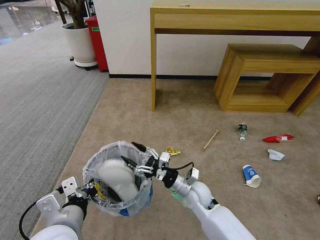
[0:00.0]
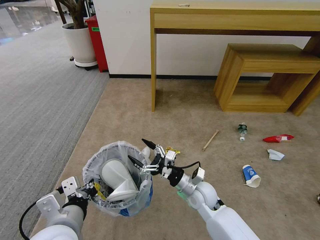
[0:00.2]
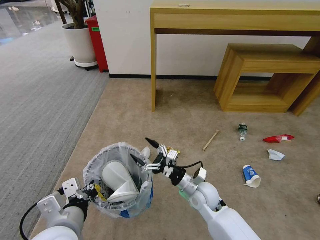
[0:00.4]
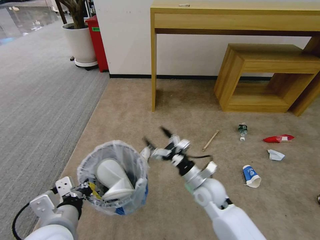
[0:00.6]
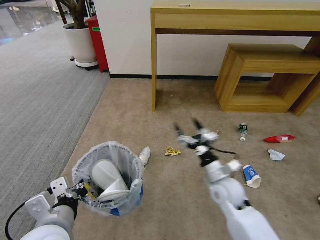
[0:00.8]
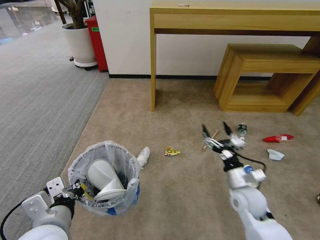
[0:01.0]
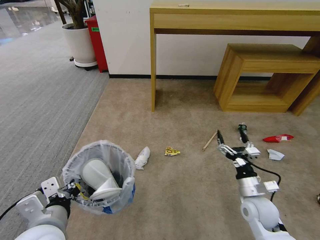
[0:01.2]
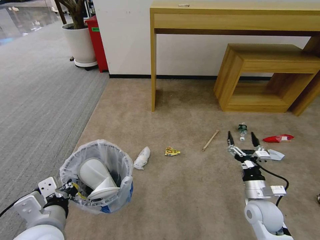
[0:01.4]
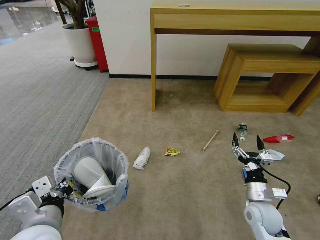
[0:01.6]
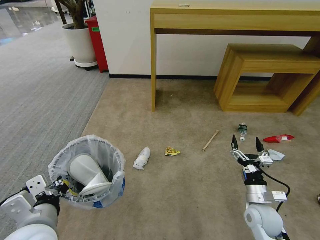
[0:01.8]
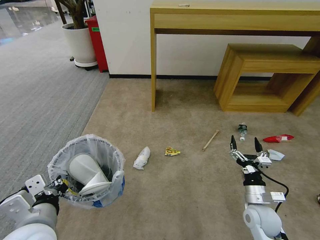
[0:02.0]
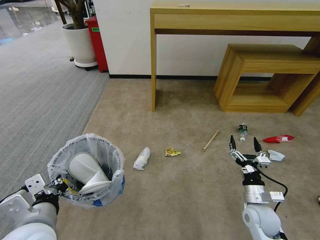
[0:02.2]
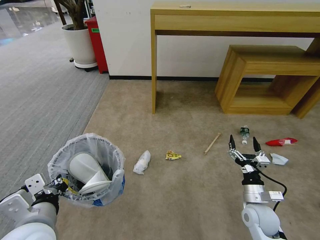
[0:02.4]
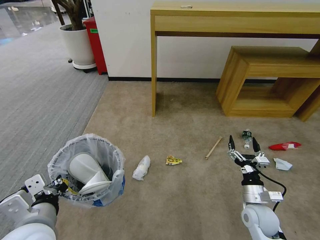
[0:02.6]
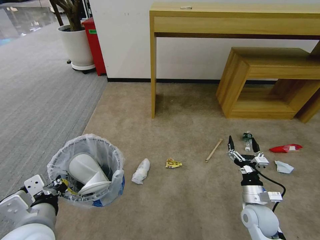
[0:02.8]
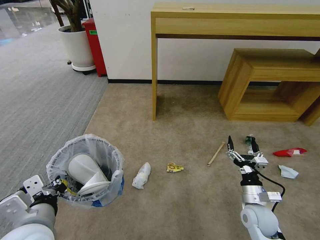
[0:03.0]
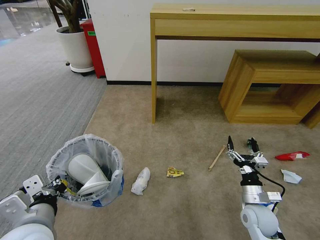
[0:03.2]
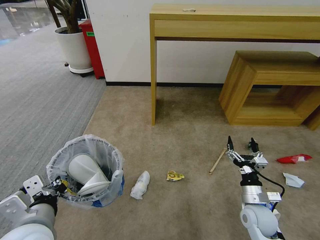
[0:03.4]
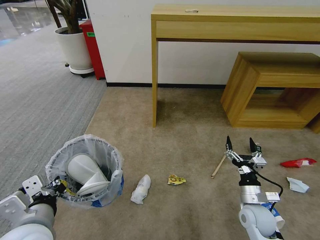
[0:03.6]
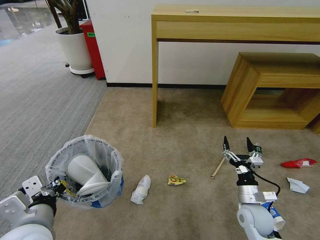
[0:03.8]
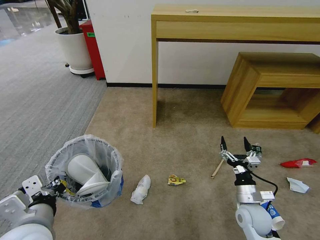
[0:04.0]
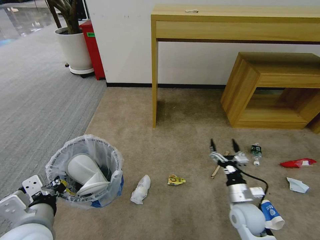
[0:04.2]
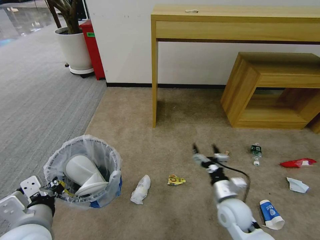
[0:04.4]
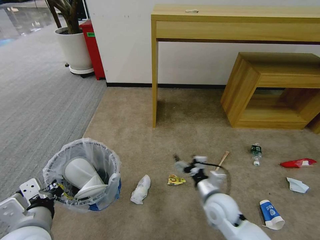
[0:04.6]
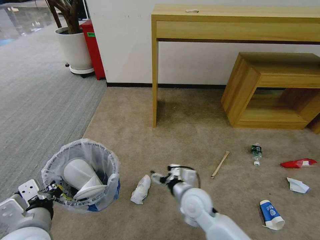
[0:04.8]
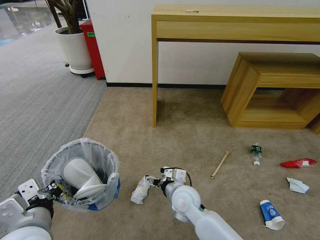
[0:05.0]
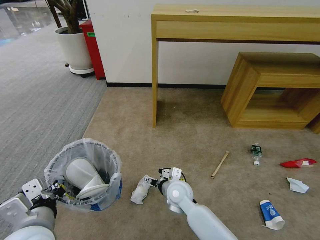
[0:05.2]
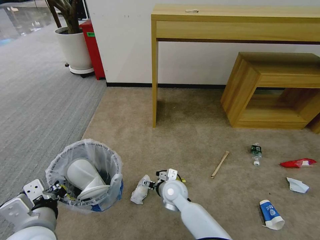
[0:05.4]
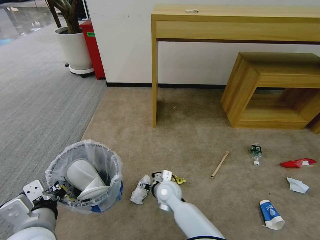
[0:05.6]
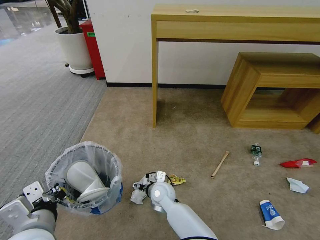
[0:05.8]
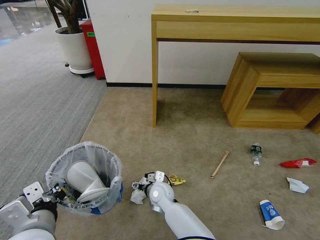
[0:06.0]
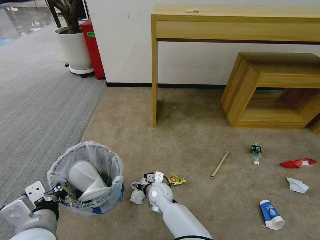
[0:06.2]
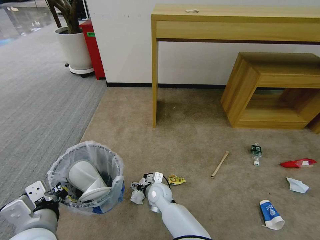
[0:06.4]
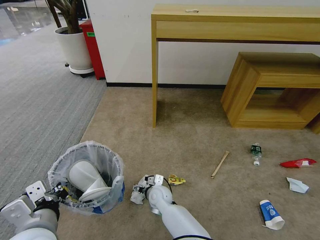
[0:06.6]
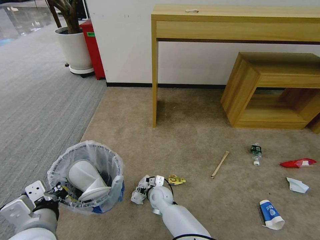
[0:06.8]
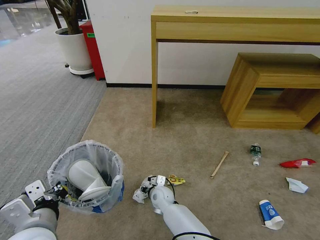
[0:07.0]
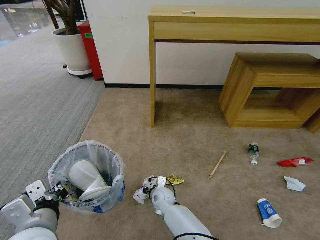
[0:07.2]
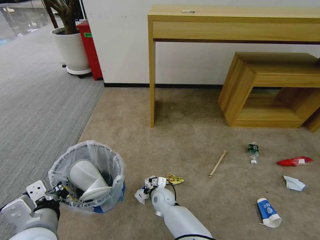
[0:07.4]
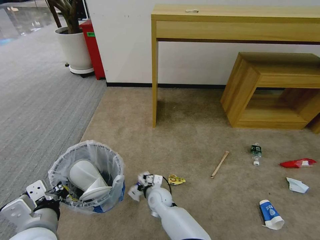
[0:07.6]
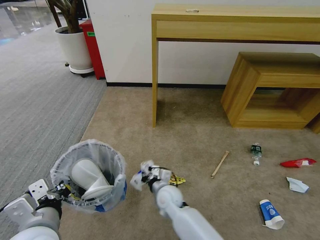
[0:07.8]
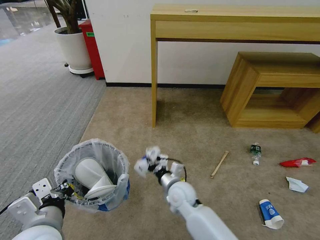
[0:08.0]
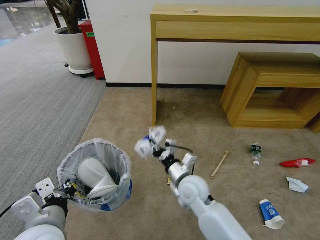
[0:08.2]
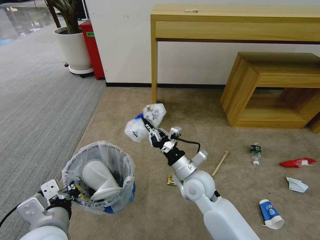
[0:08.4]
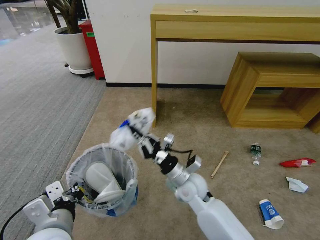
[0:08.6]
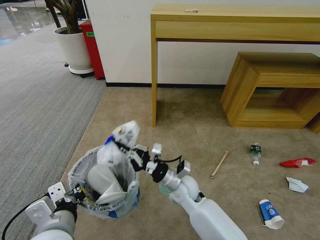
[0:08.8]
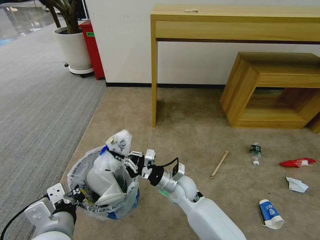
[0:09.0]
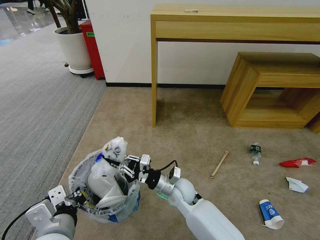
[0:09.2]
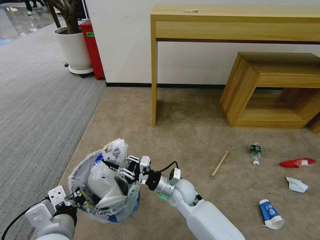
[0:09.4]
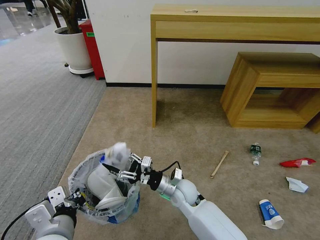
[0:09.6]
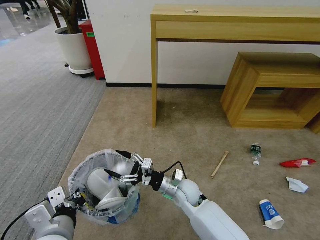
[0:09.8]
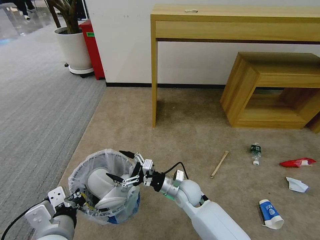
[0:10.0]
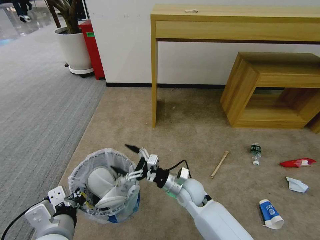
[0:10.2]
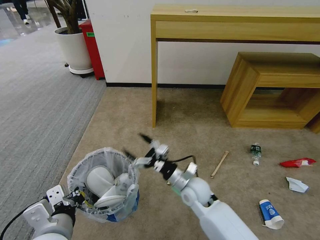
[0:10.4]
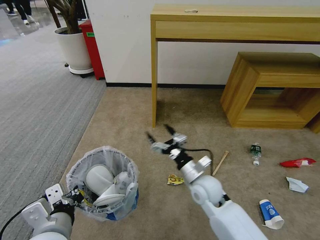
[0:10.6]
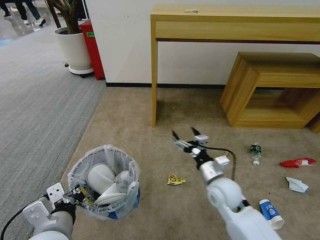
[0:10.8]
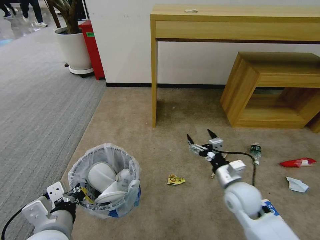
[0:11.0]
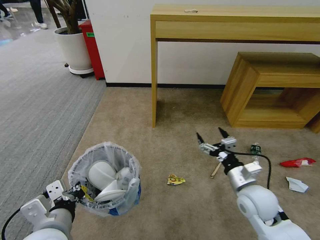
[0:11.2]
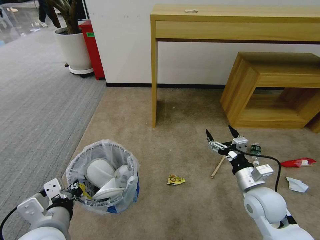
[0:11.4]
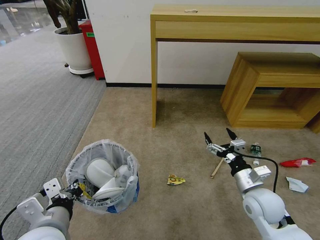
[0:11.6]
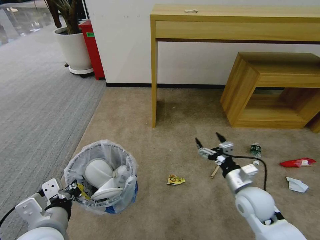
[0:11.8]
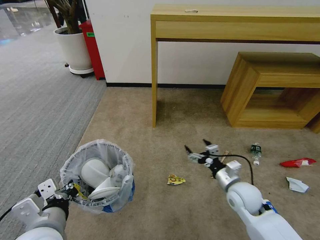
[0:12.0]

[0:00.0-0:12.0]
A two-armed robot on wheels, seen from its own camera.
Task of the whole recording: Pick up the trash bin and place the garbage on the floor into it.
0:00.0 to 0:01.6: The right gripper shifts about 20 cm to the right.
0:03.0 to 0:04.4: The right gripper moves to the left, approximately 5 cm.
0:04.4 to 0:06.0: The right gripper goes approximately 25 cm to the left.
0:06.0 to 0:07.6: The right gripper closes its fingers.
0:07.6 to 0:09.0: The right gripper goes some 15 cm upward and to the right.
0:09.0 to 0:10.4: The right gripper shifts by roughly 5 cm, and opens up.
0:10.4 to 0:12.0: The right gripper heads to the right, covering about 15 cm.

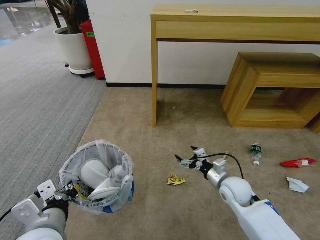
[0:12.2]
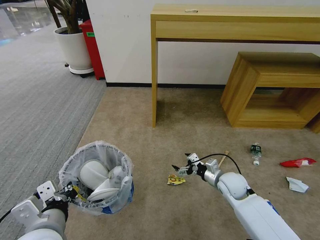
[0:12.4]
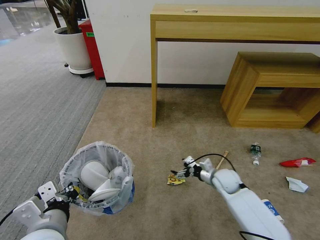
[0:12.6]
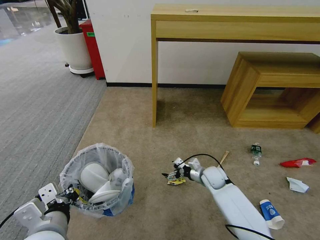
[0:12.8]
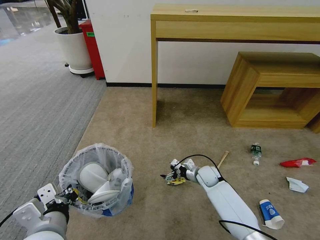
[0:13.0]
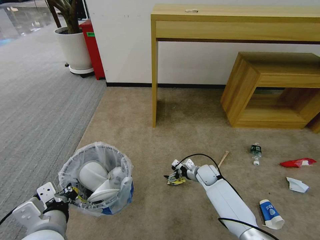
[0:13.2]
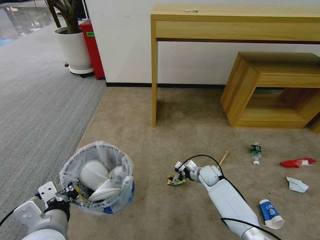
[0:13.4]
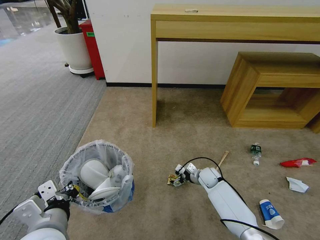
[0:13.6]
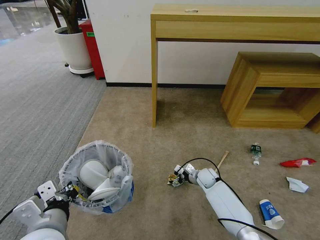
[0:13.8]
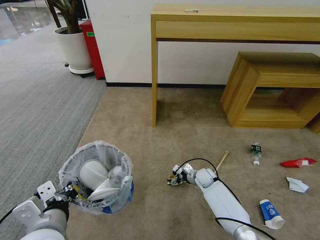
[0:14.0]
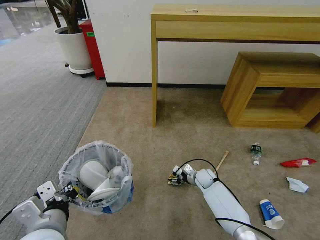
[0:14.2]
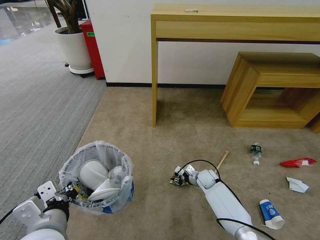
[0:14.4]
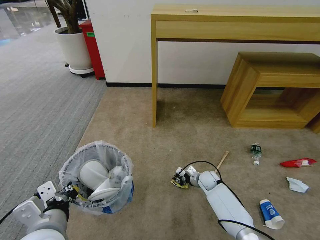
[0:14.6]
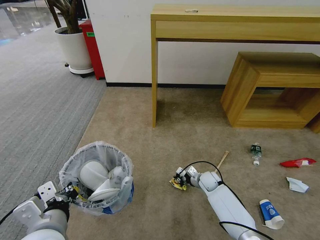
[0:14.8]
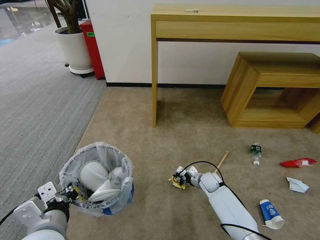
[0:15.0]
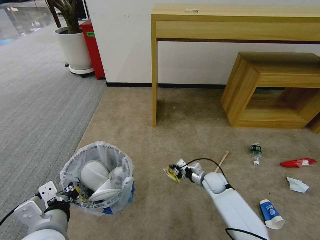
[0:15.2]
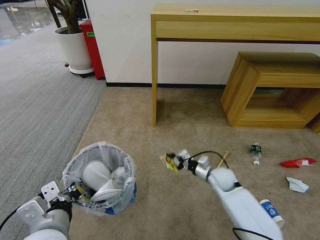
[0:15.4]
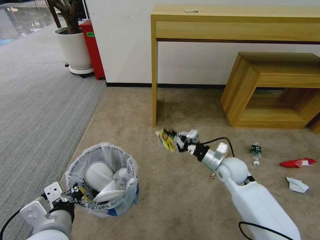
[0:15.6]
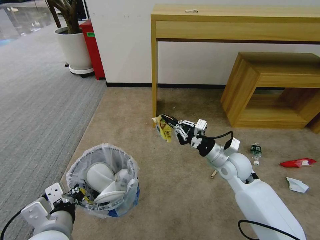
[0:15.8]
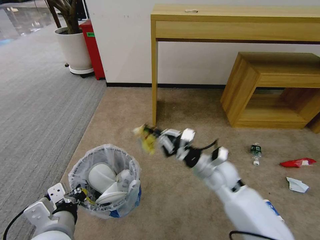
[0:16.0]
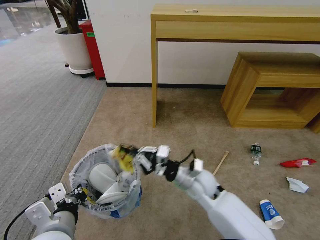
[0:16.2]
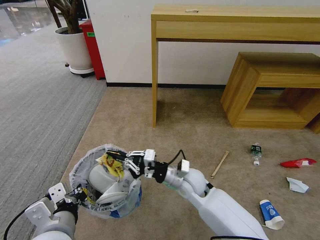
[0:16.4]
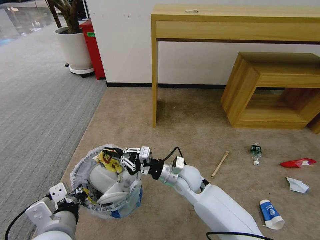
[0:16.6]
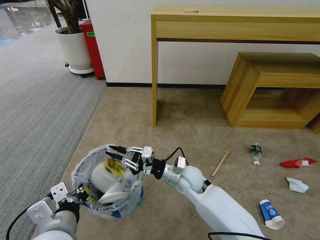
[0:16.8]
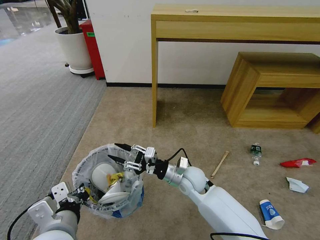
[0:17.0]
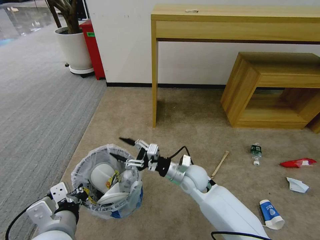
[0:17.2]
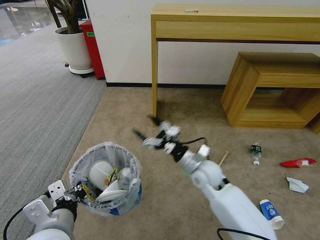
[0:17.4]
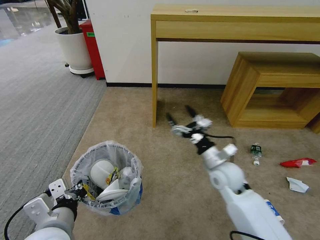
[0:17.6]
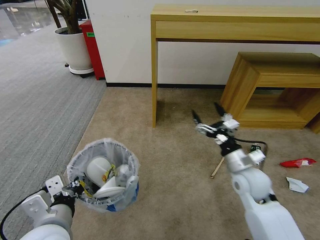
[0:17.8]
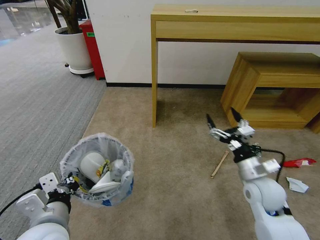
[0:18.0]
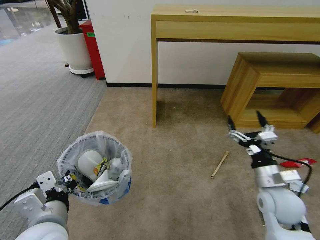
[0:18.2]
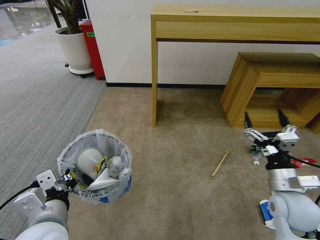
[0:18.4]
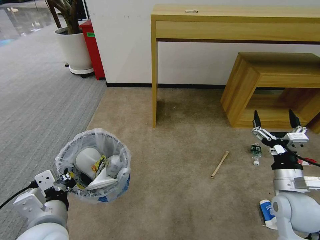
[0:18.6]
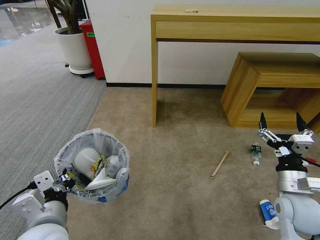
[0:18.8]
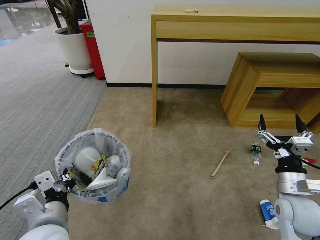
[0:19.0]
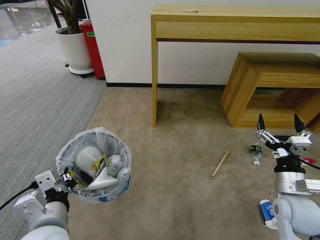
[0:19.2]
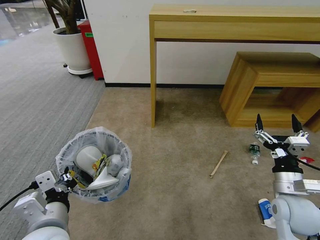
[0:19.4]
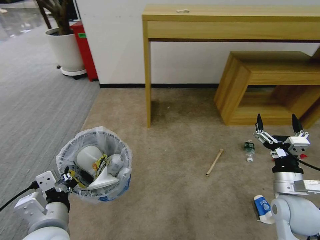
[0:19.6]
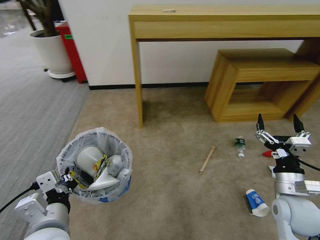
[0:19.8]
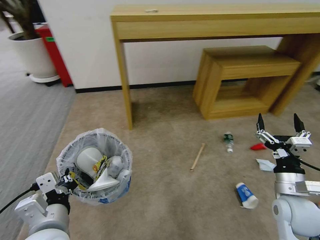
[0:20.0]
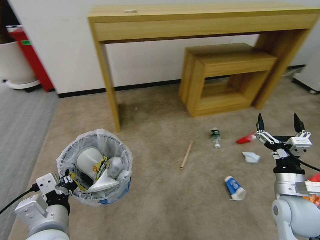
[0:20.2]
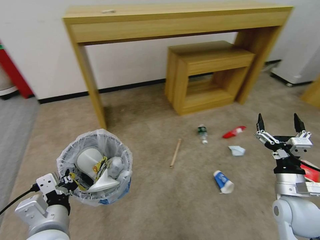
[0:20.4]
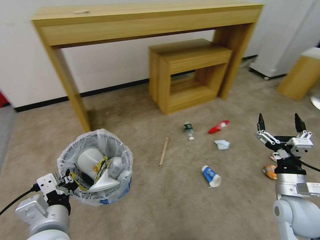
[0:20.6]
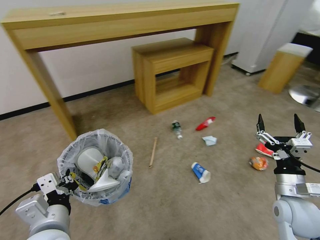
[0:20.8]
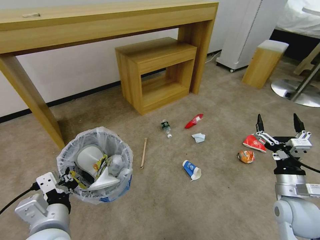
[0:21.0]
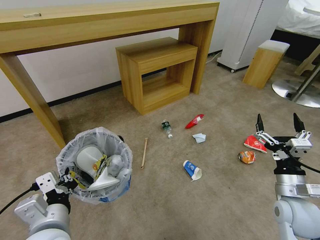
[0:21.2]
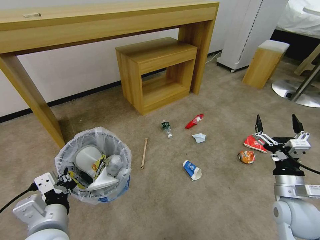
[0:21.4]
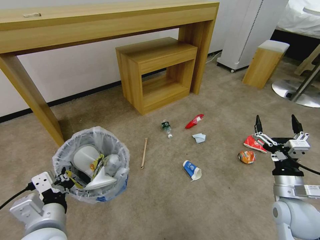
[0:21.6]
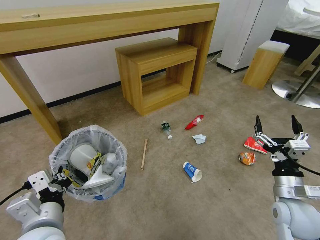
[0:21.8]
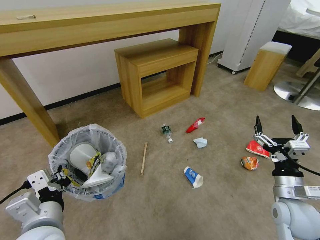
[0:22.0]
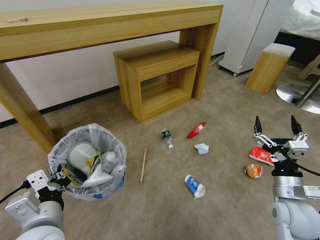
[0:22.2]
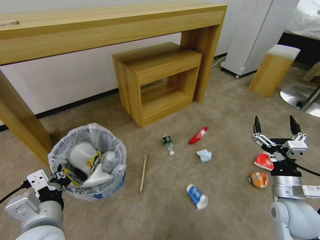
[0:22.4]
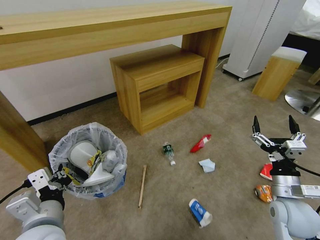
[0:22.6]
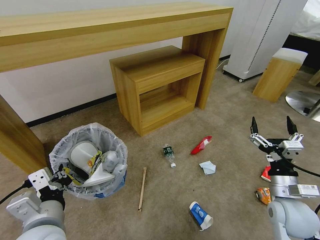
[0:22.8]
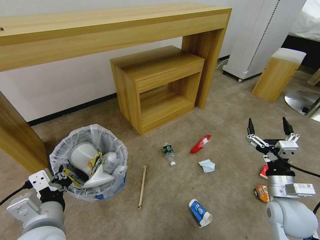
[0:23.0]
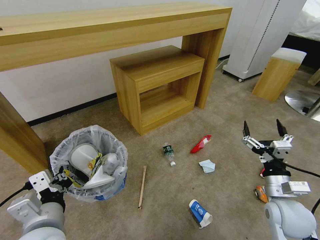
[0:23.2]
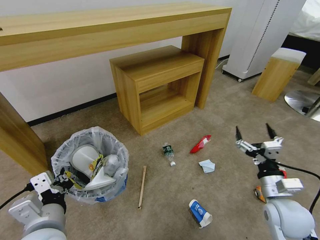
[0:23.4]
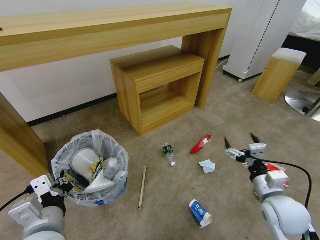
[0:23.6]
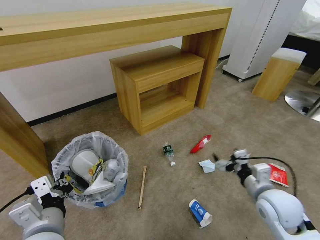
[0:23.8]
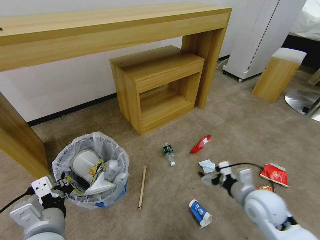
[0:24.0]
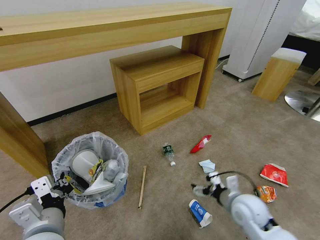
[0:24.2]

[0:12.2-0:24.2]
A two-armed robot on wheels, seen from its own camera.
Task of the whole recording: Pick up the trash bin and place the garbage on the floor into it.
0:12.2 to 0:13.8: The right gripper goes approximately 20 cm downward and forward.
0:13.8 to 0:15.2: The right gripper closes.
0:15.2 to 0:16.6: The right gripper shifts some 20 cm to the left and upward.
0:16.6 to 0:18.2: The right gripper shifts some 25 cm to the right, and opens up.
0:22.6 to 0:24.2: The right gripper heads to the left and downward, covering some 10 cm.
